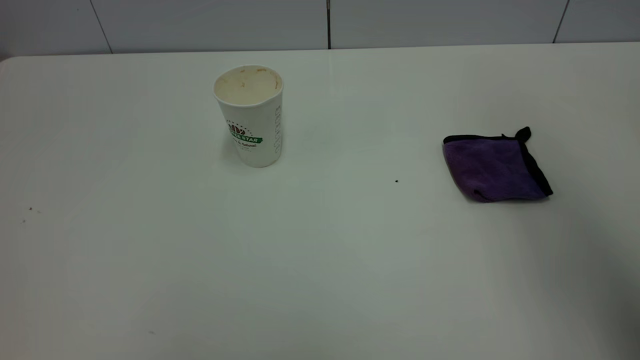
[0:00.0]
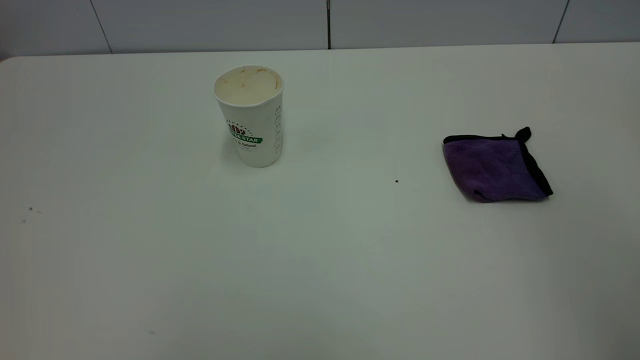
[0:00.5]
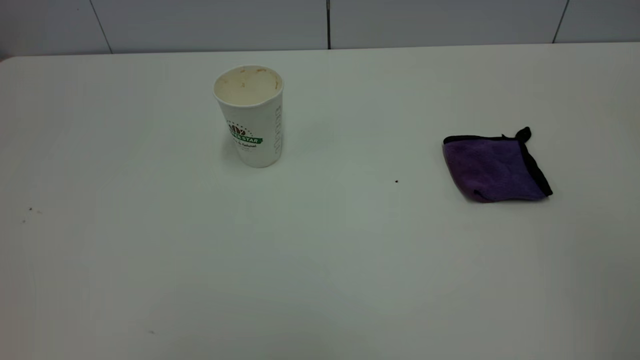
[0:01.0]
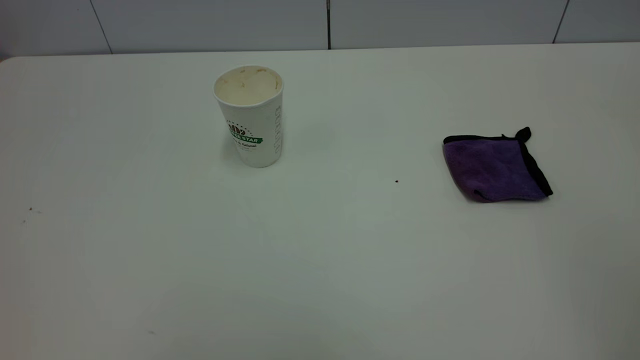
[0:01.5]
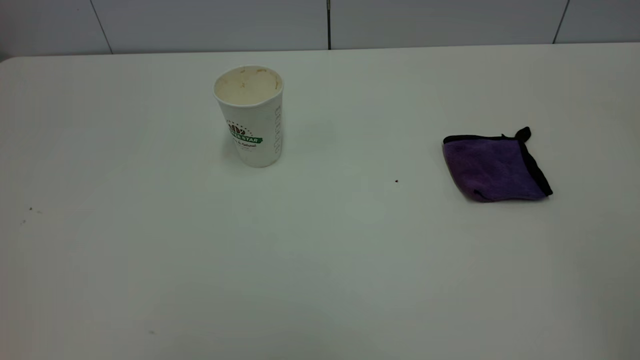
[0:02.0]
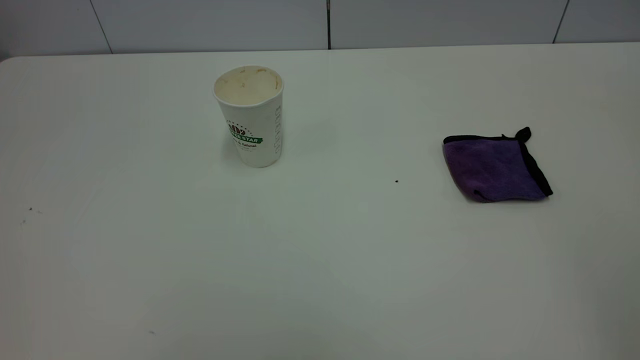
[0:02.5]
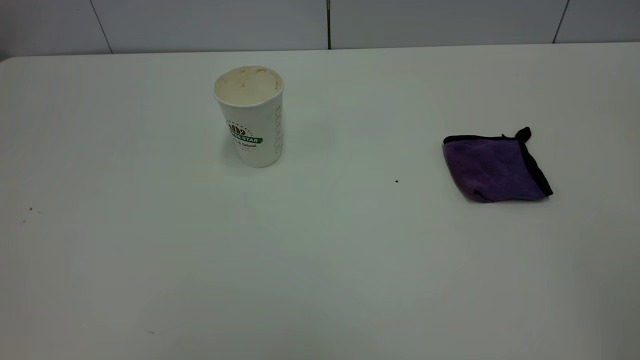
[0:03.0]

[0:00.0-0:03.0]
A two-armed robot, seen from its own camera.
Task of the whole recording: the left gripper pick up the fallen cup and place it upright, the right gripper grasp the purple rag and wipe the tea stain on the table, the right gripper put the purple rag back in its original position.
0:00.0 to 0:01.5: The right gripper heads backward, covering approximately 20 cm.
